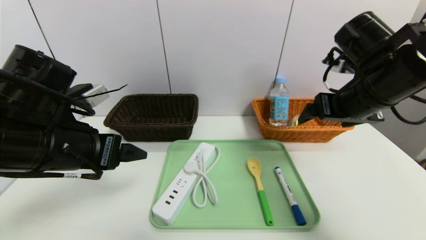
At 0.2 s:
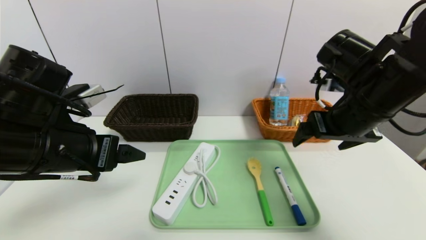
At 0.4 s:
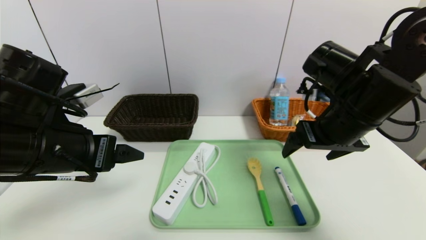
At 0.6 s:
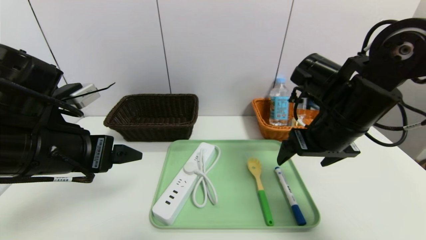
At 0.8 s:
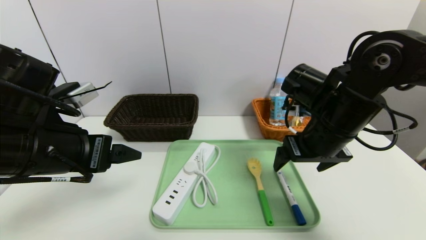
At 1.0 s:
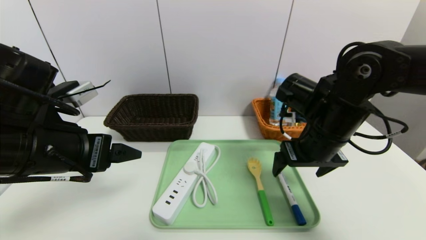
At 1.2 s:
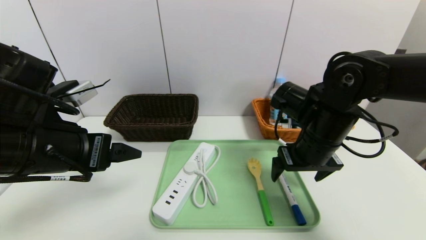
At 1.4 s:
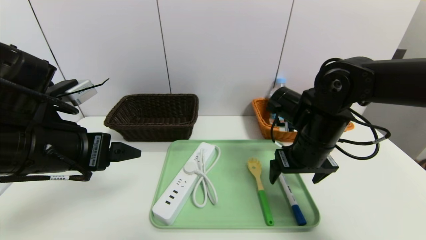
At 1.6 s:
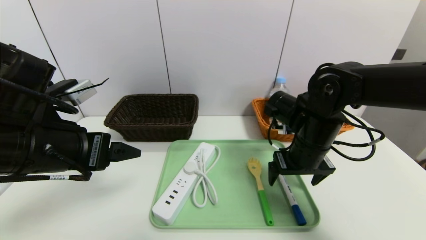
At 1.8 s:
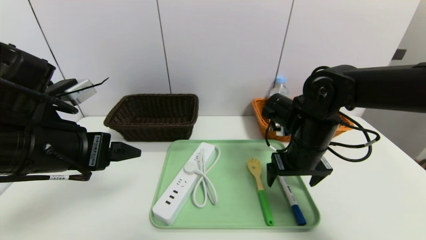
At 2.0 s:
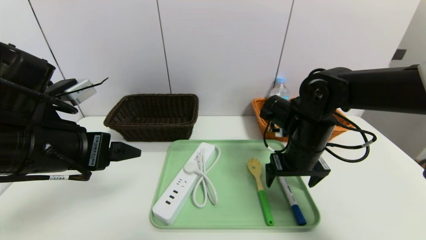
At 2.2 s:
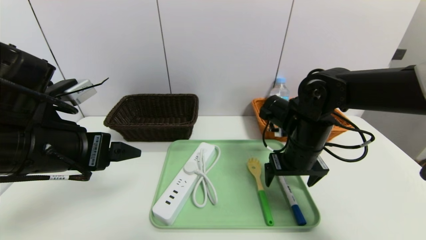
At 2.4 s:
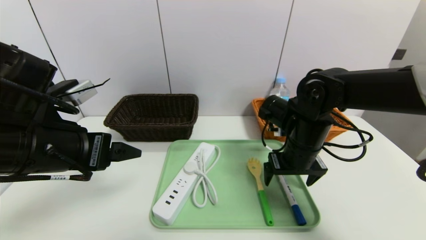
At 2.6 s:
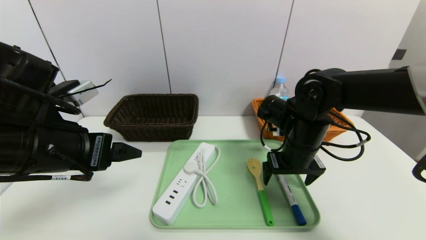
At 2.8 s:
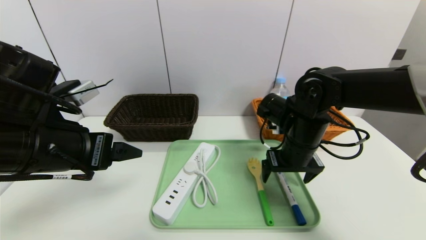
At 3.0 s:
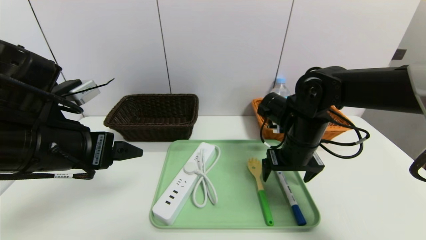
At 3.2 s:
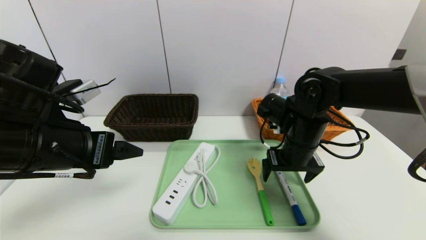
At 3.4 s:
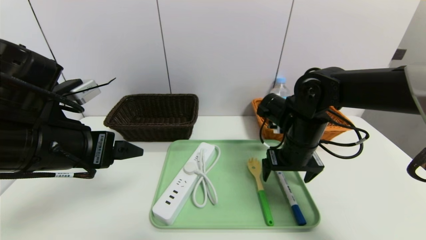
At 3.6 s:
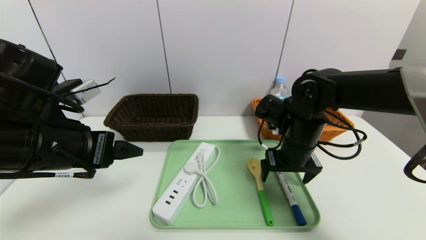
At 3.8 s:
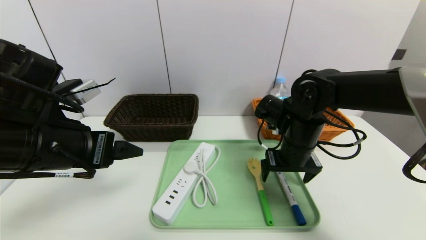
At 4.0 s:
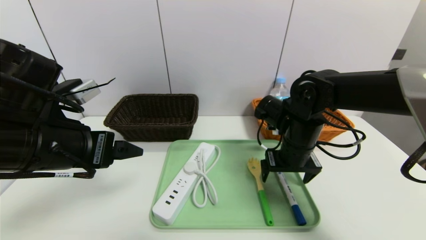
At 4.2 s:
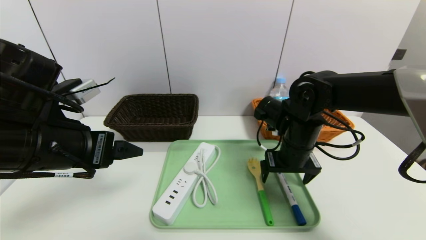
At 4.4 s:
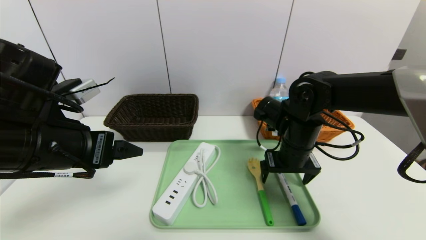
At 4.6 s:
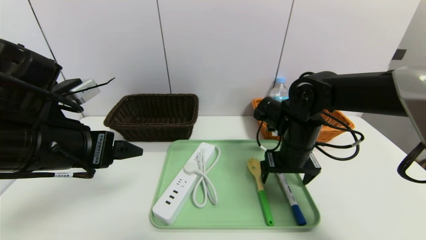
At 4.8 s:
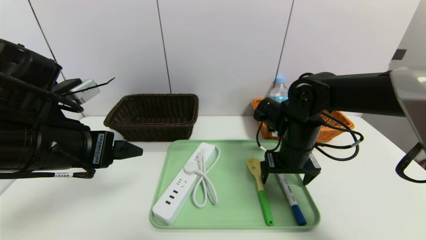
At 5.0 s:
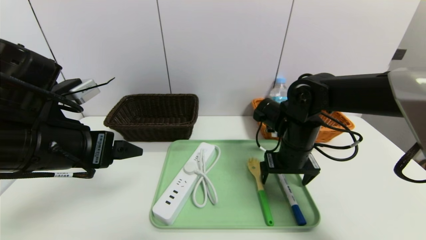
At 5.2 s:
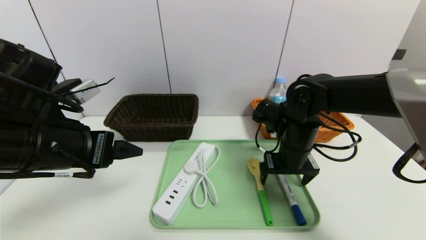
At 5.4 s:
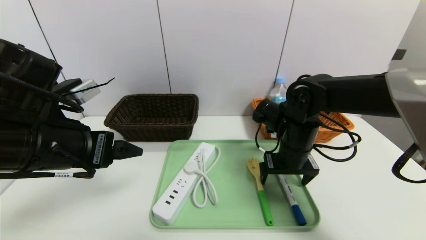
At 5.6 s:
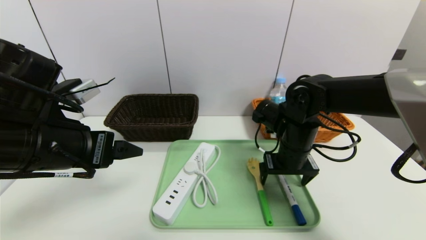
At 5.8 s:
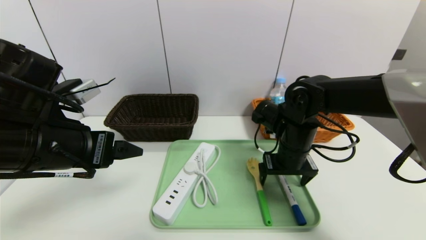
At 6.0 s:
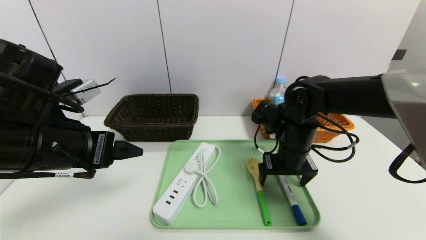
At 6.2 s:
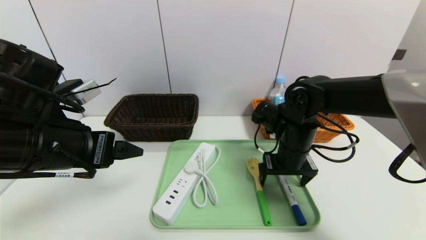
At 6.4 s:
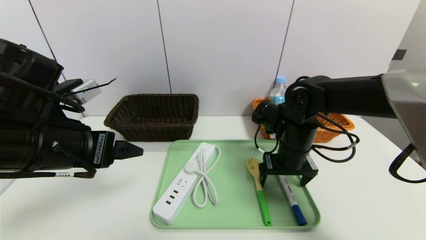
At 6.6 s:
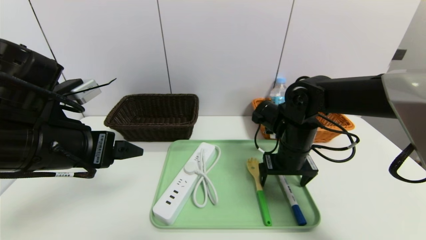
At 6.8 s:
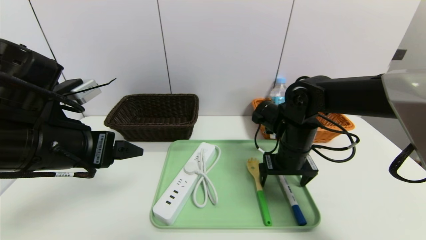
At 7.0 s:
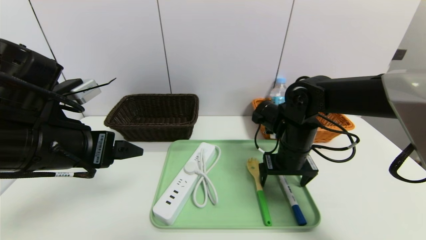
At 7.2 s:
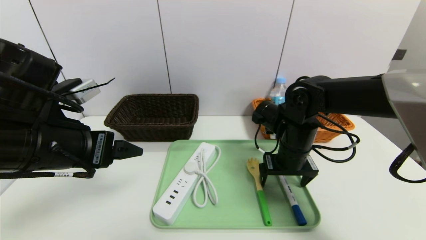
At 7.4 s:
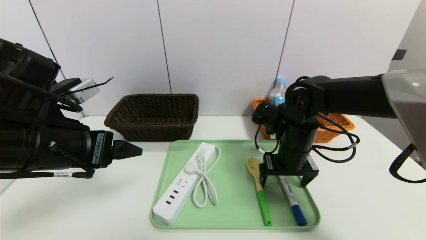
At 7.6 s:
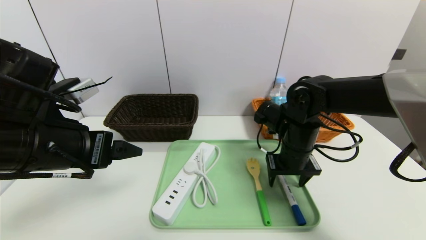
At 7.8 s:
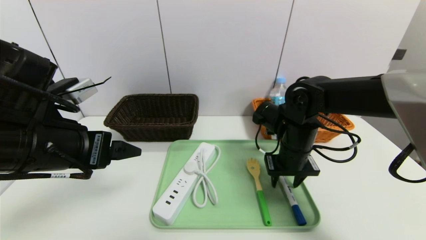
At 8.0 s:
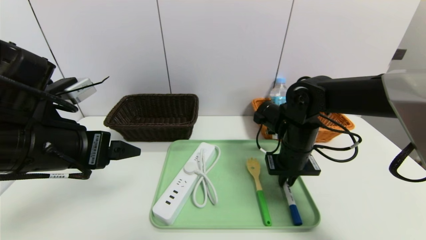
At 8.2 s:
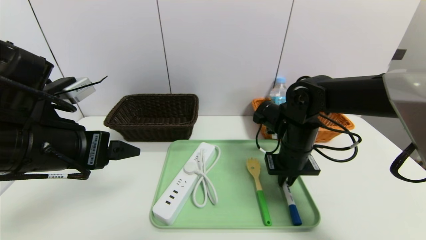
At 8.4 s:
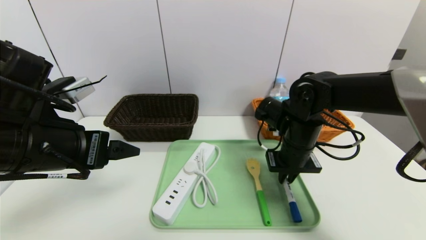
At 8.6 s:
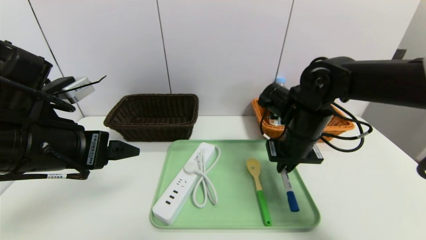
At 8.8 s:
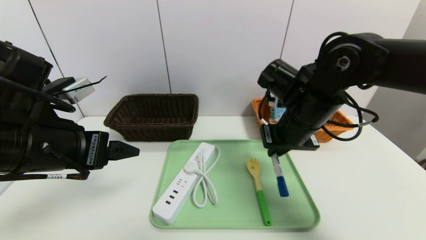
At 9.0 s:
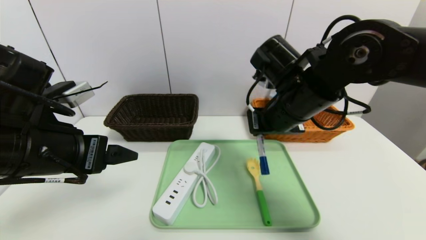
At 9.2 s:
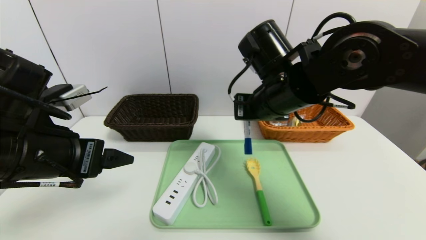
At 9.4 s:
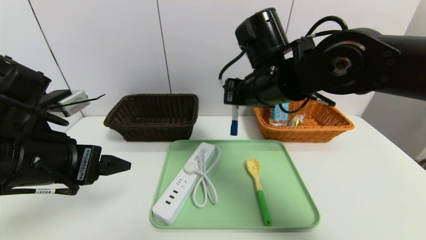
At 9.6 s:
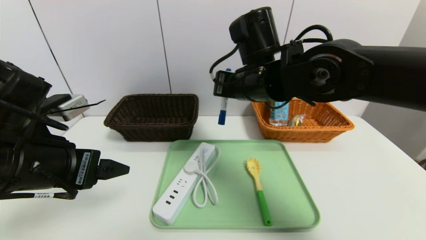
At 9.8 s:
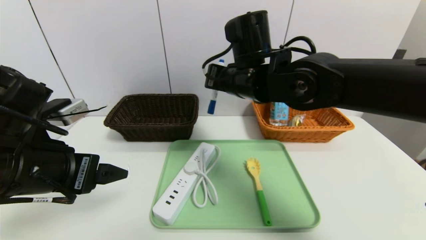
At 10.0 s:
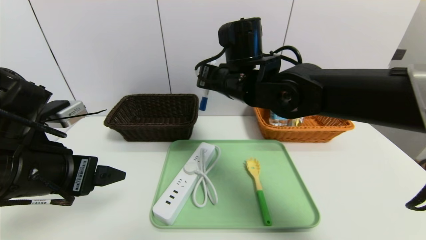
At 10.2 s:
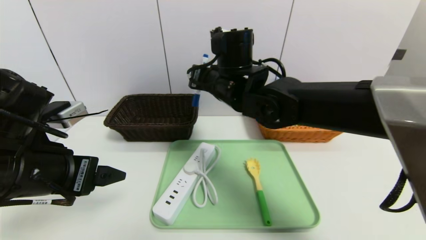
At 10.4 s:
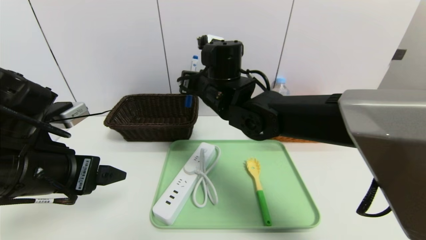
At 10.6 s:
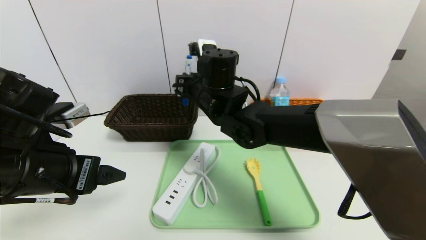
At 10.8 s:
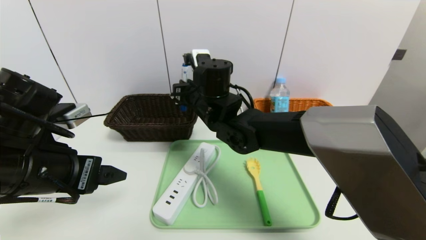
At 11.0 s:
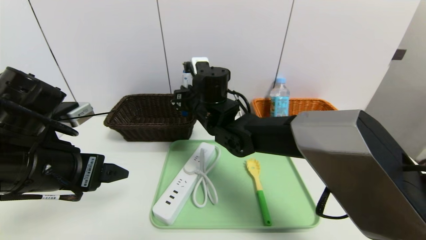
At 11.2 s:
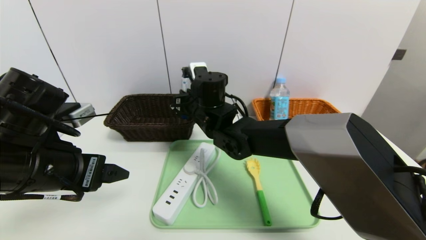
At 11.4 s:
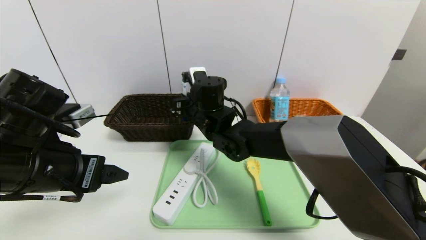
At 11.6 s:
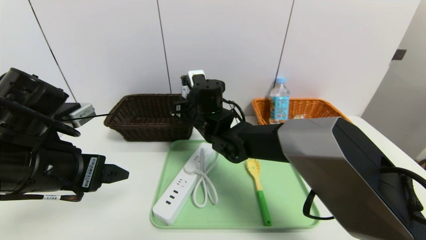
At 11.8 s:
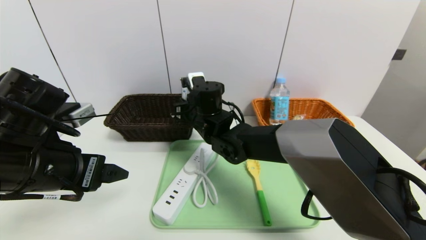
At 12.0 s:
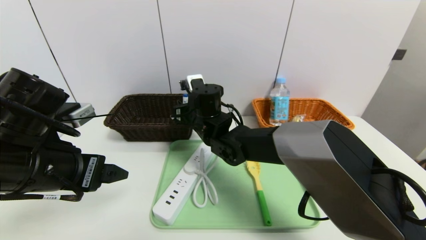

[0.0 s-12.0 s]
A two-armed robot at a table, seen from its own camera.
Task of the whole recording: place the food in the right basket with the right gripper, and place the non food items in the left basket with the left gripper.
0.0 to 1.6 s: The right gripper travels downward and to the left by some 10 cm.
1.6 to 3.0 s: There are only small adjustments of the grippers.
3.0 to 4.4 s: Both grippers stay put.
4.4 to 7.6 s: Neither gripper changes place.
7.6 to 9.0 s: The right gripper moves upward, some 10 cm, and closes its fingers.
9.0 to 10.4 s: The right gripper is displaced to the left and forward by some 15 cm.
10.4 to 12.0 s: The right gripper heads downward, covering about 10 cm.

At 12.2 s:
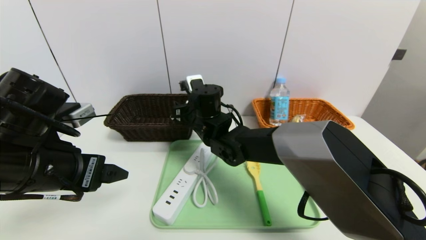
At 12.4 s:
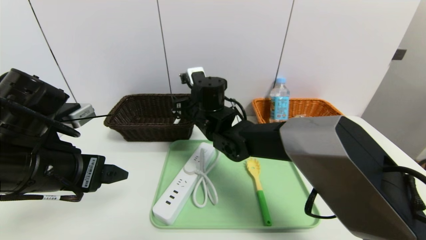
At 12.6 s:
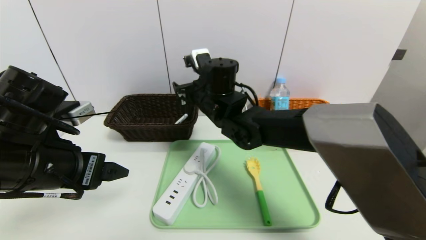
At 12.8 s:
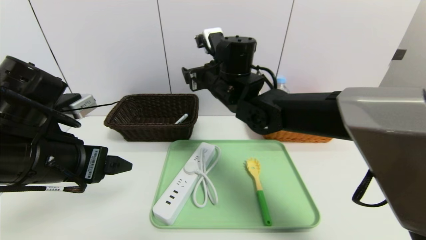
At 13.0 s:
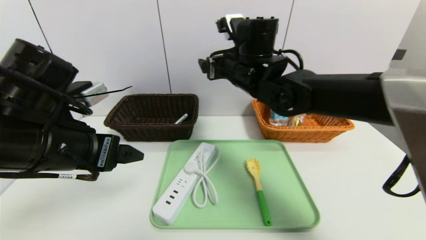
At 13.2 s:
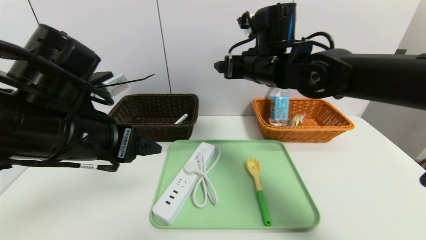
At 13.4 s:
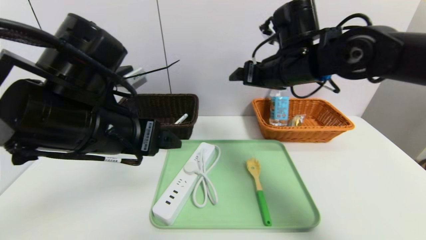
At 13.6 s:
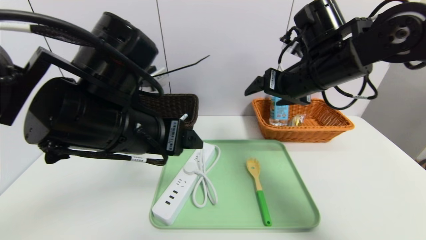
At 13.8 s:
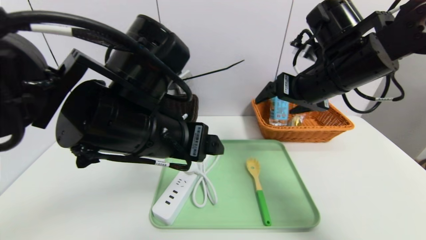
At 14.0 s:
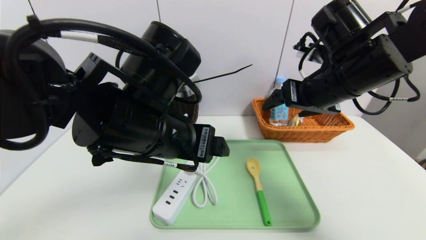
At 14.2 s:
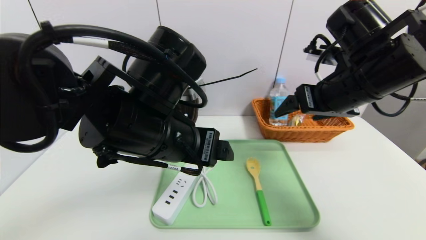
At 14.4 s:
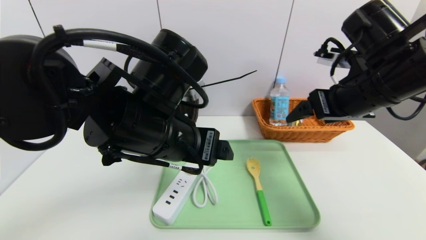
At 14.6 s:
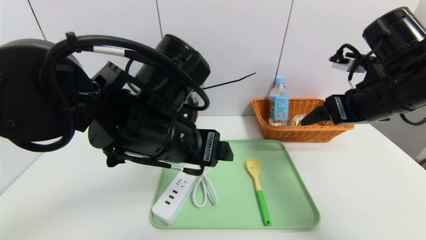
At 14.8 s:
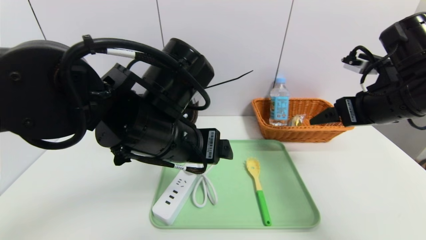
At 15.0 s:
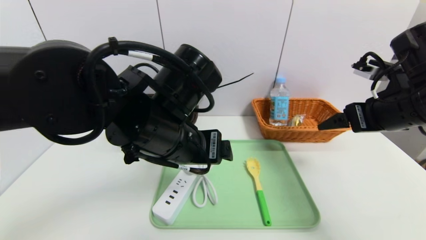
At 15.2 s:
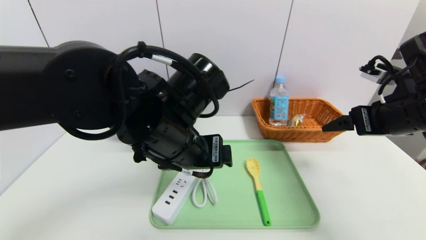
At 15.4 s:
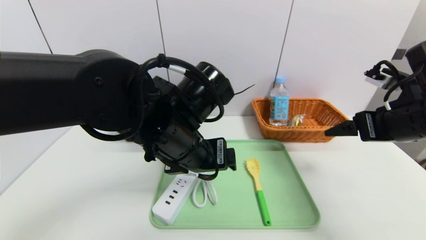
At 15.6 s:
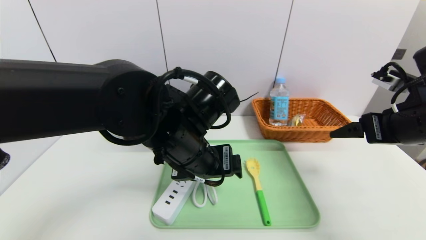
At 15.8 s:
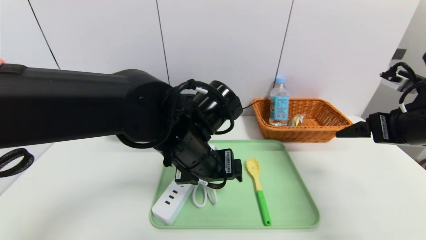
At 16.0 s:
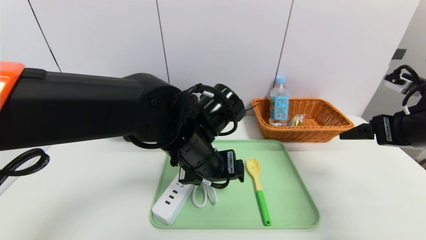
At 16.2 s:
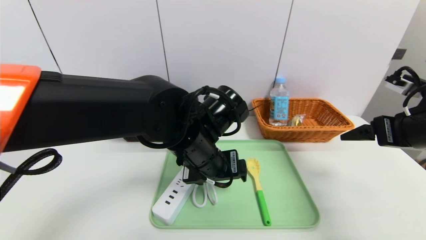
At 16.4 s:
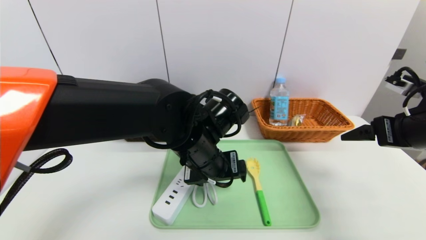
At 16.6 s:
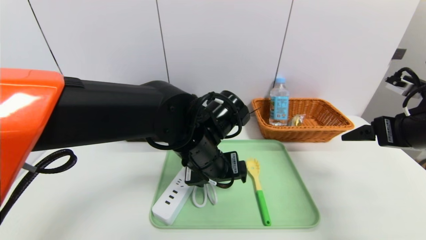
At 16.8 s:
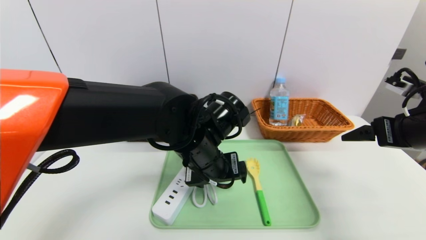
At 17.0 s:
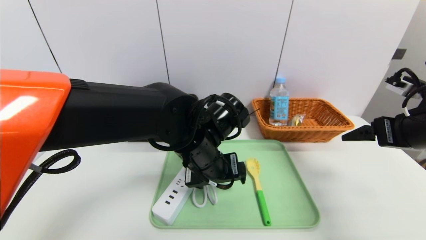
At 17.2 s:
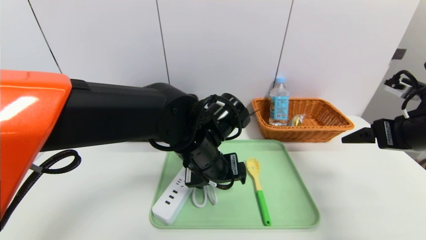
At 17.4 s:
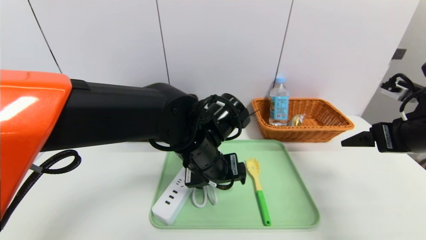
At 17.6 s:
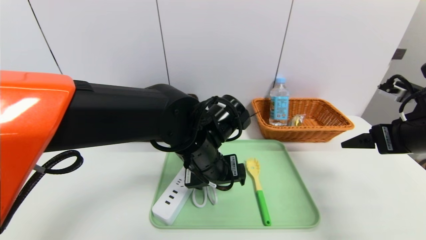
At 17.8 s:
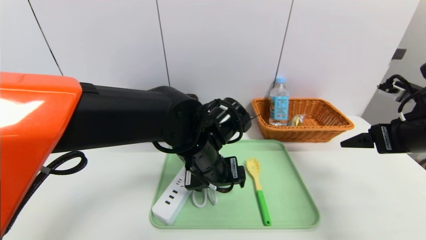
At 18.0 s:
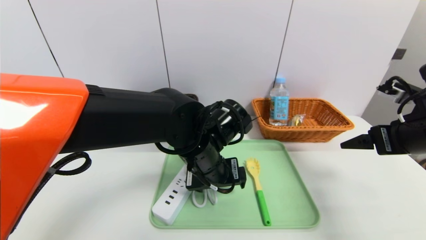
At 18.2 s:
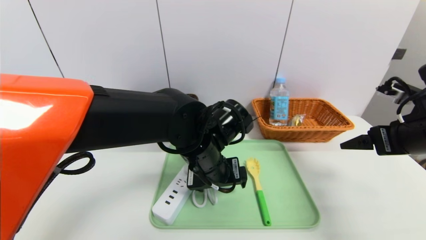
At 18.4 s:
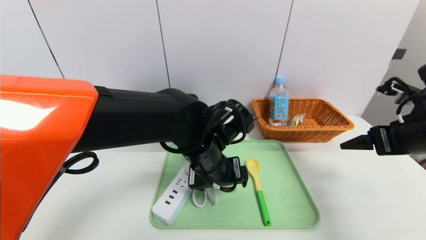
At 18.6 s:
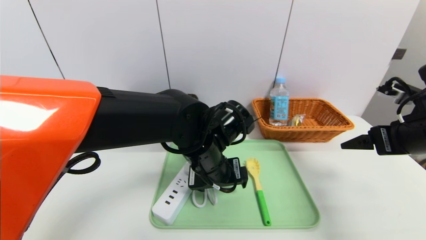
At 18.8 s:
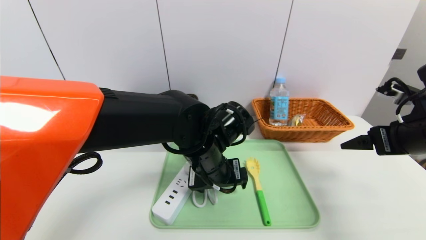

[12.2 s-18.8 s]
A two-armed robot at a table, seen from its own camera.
Task of the whole recording: place the food in the right basket with the right gripper, and place the non food items in the left basket with the left gripper.
12.2 to 13.8 s: The left gripper travels to the right by roughly 15 cm, while the right gripper heads to the right and upward, covering approximately 25 cm, and opens.
13.8 to 15.4 s: The right gripper goes some 15 cm to the right and backward. Meanwhile the left gripper changes place by some 5 cm.
15.4 to 17.2 s: The left gripper moves approximately 5 cm.
17.2 to 18.8 s: The grippers move only a little.
